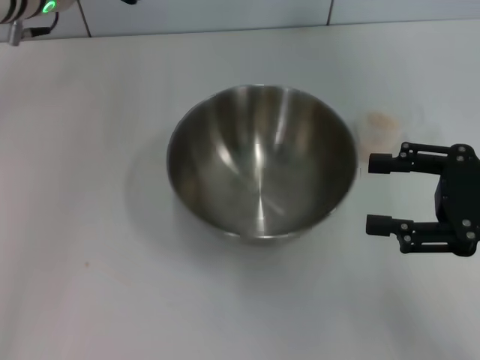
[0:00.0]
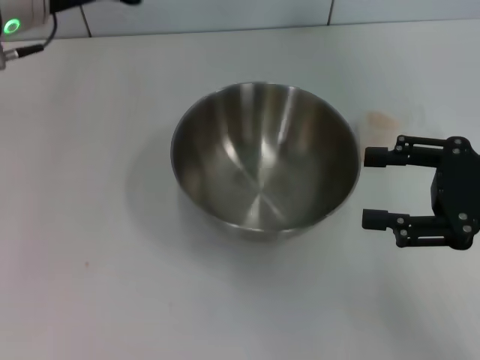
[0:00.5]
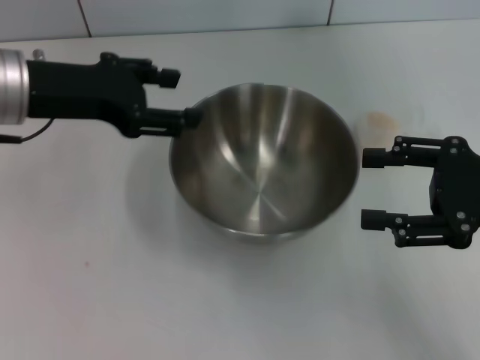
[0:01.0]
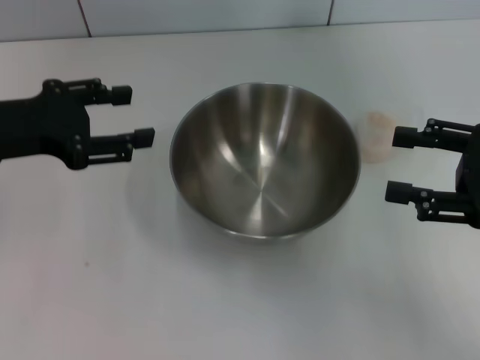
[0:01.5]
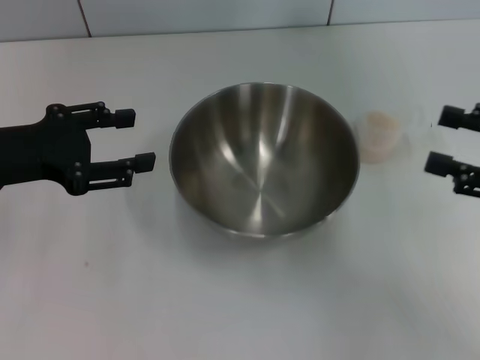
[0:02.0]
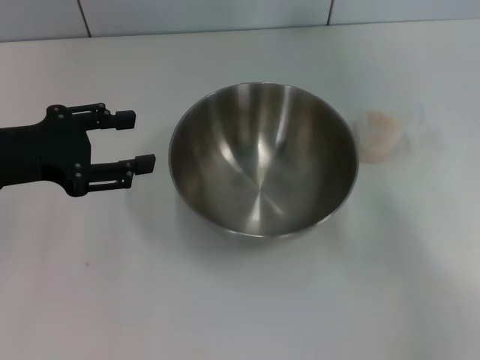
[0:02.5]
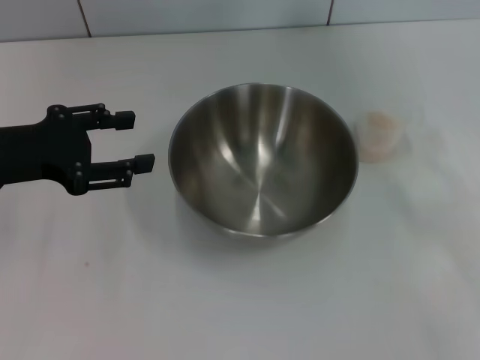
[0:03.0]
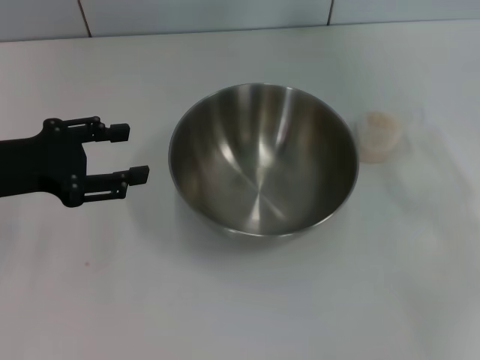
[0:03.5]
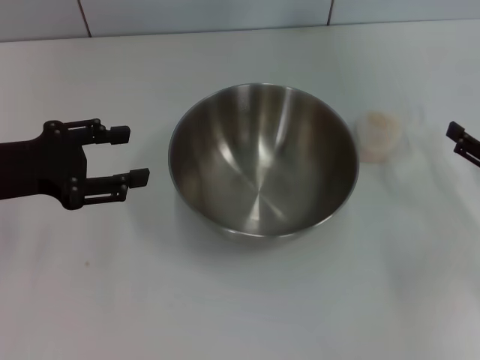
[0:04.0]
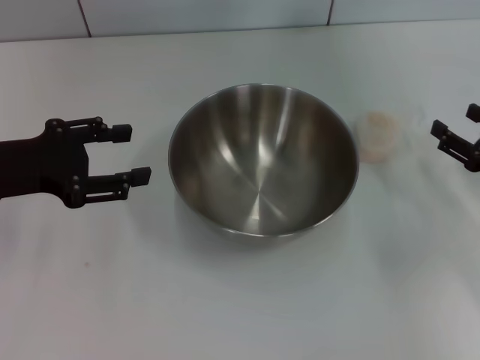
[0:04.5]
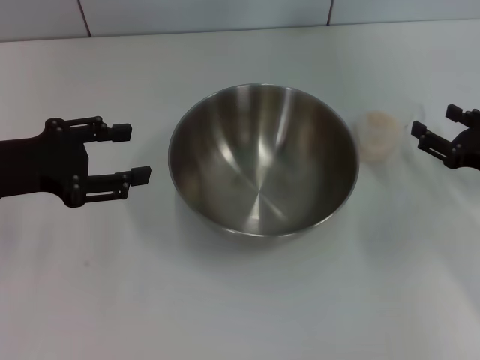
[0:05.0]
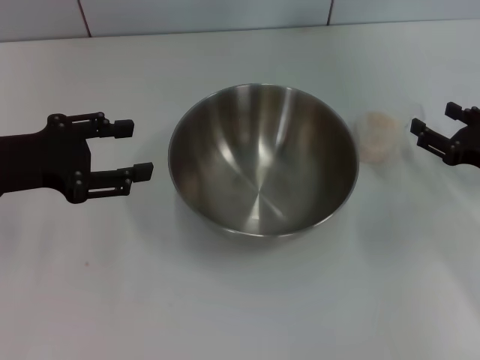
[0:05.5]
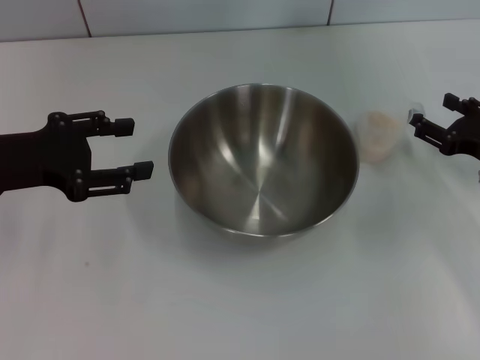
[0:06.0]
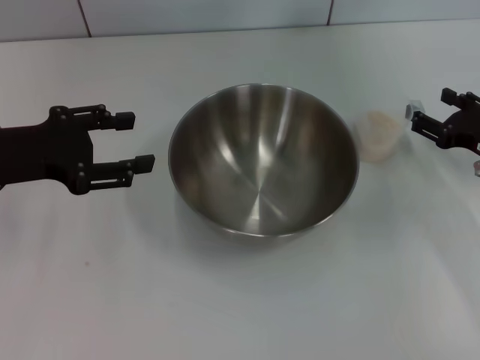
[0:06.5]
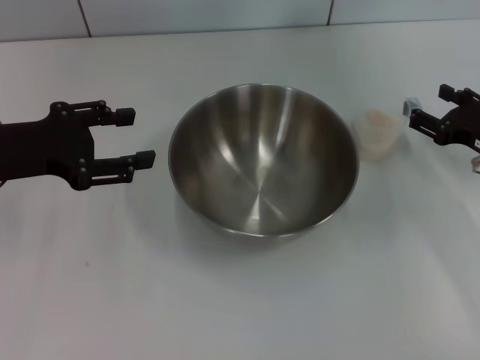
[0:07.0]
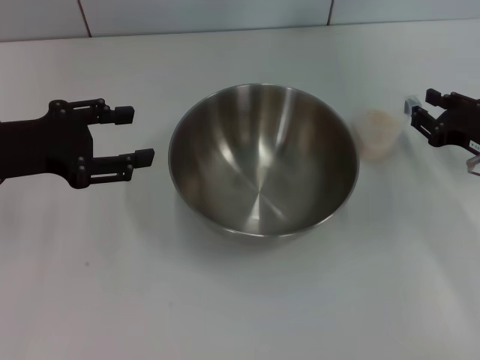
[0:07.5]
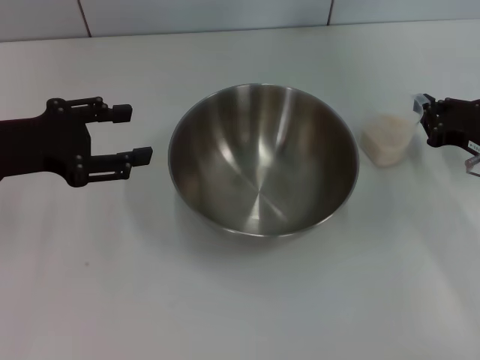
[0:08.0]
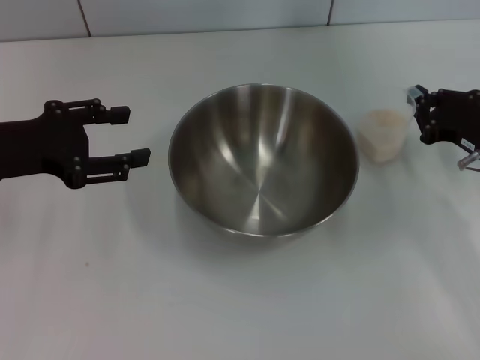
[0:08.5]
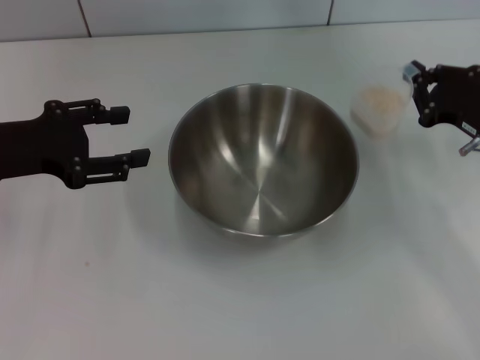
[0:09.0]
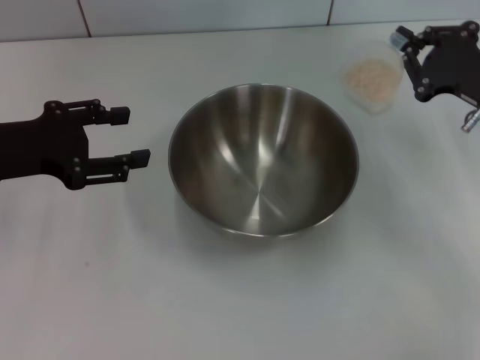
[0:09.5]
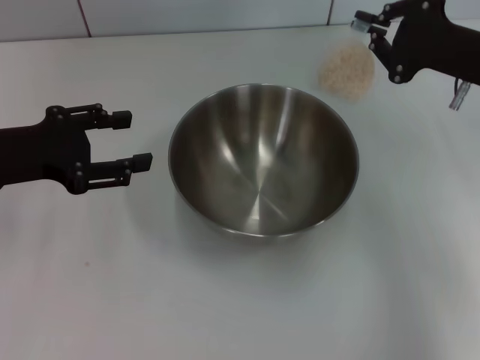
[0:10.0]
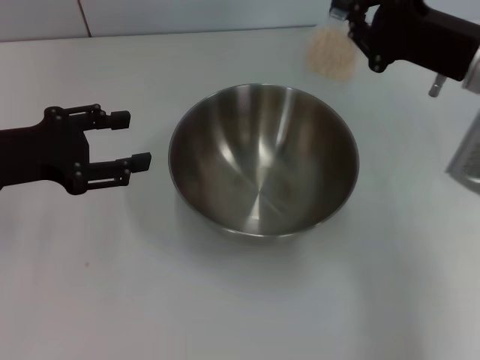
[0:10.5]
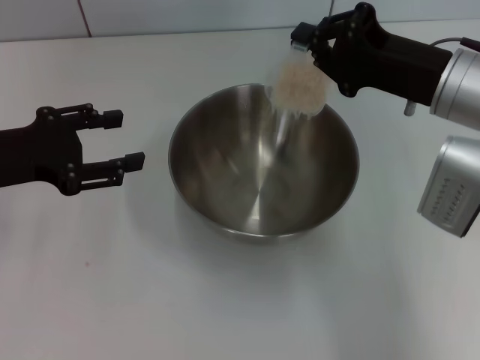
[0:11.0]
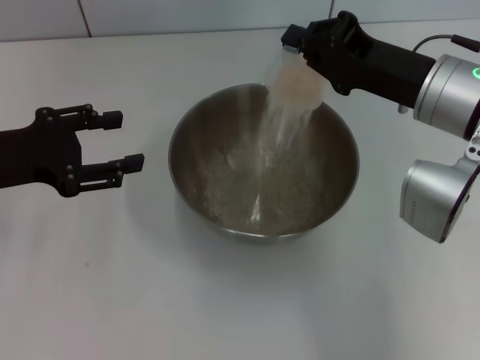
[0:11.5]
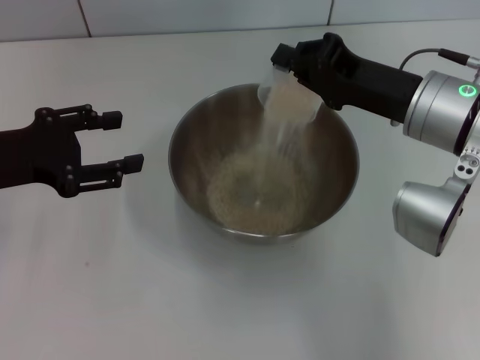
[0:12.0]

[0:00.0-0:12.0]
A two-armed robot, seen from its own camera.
Task of the whole recording: Place the bowl in the middle of the table with one hand and pour the rice from the grain cup into it with the other hand.
Step, 0:00.0 to 0:09.0: Pick up the cup with rice in it with the right gripper.
0:00.0 to 0:02.0: The left gripper is displaced backward, to the left and downward by roughly 15 cm. Meanwhile the right gripper heads to the right, covering approximately 5 cm.
0:02.0 to 0:04.0: The right gripper heads downward, covering roughly 10 cm.
0:04.0 to 0:06.0: The right gripper changes place by about 5 cm.
0:06.0 to 0:08.0: The right gripper closes up.
0:08.0 to 0:10.0: The right gripper is displaced upward by about 10 cm.
0:10.0 to 0:12.0: The right gripper heads to the left, covering some 10 cm.

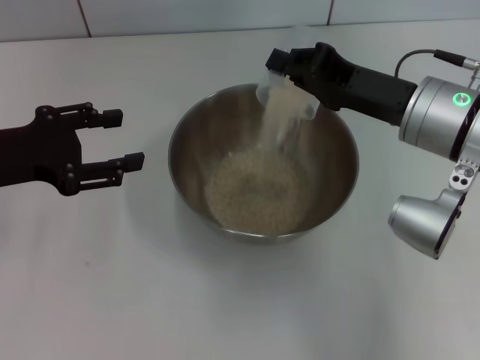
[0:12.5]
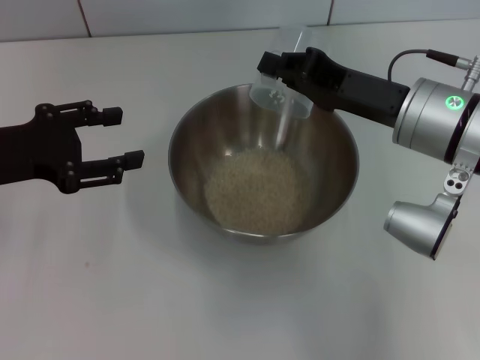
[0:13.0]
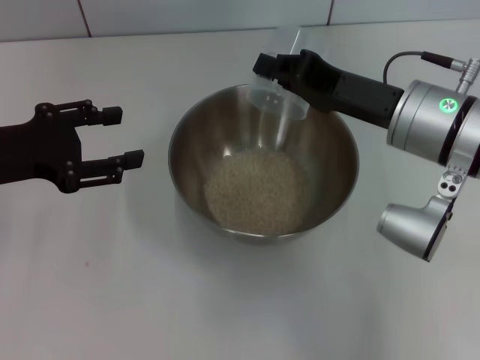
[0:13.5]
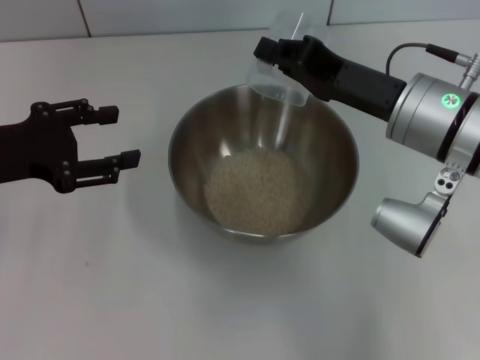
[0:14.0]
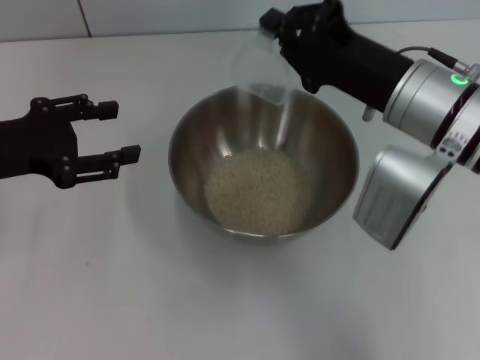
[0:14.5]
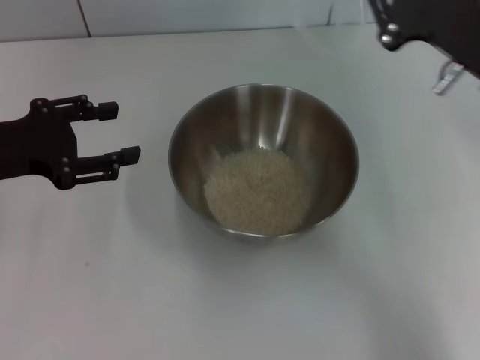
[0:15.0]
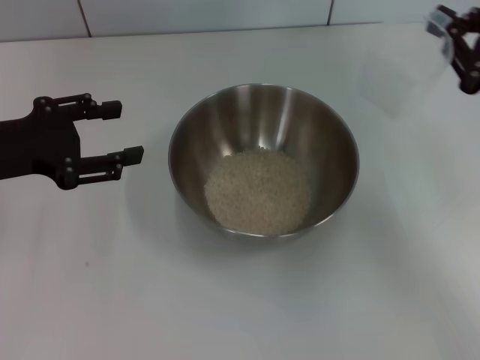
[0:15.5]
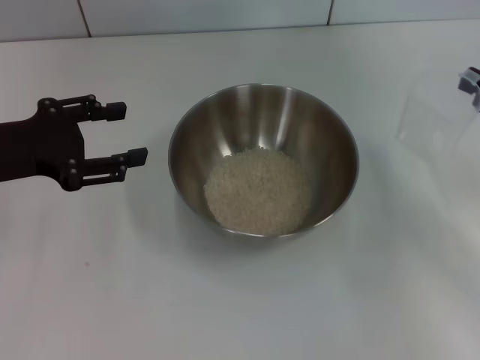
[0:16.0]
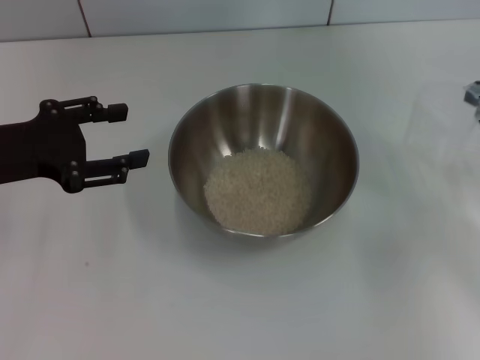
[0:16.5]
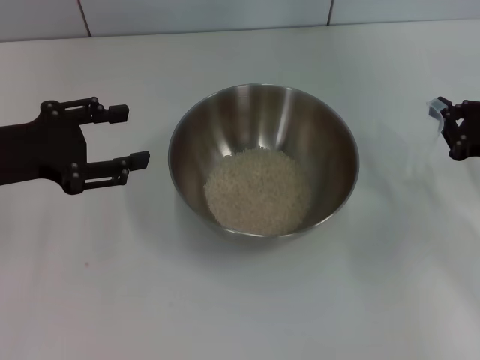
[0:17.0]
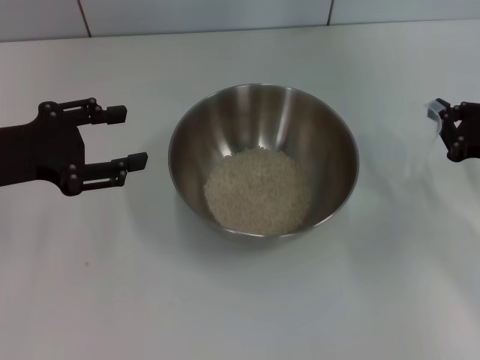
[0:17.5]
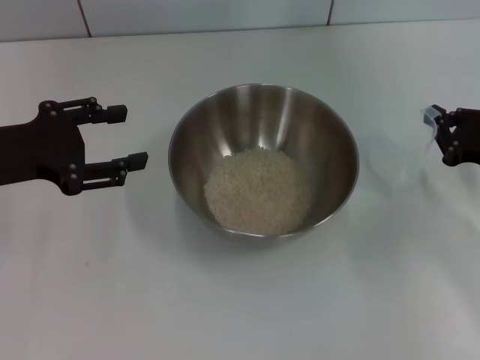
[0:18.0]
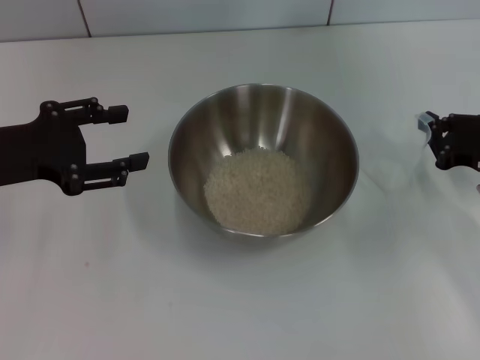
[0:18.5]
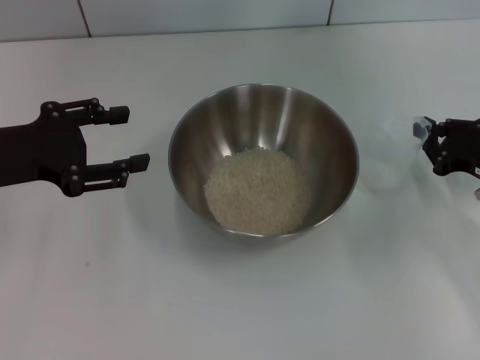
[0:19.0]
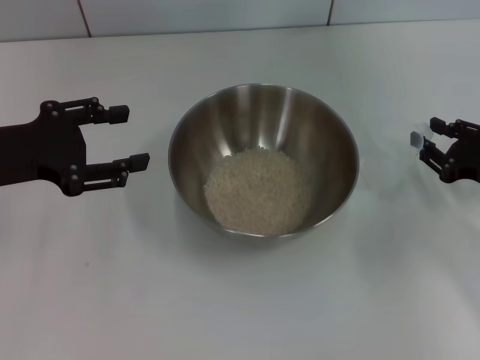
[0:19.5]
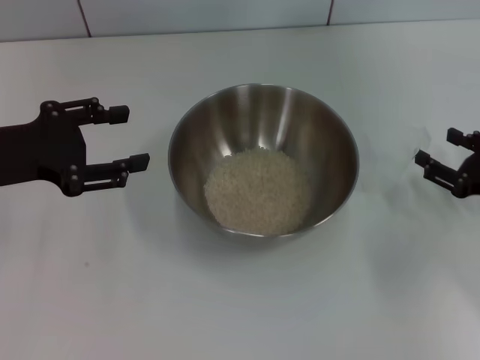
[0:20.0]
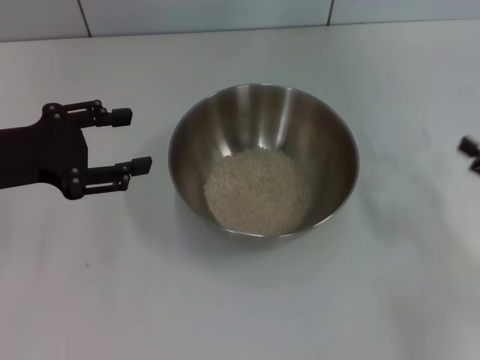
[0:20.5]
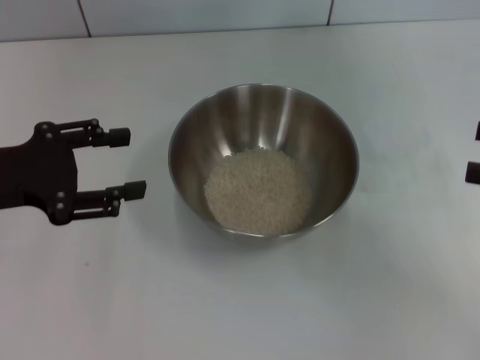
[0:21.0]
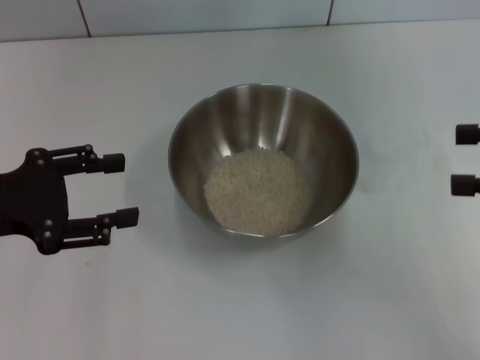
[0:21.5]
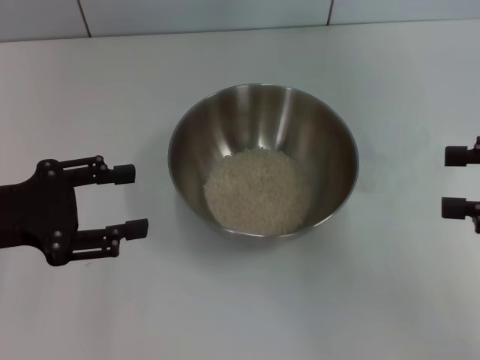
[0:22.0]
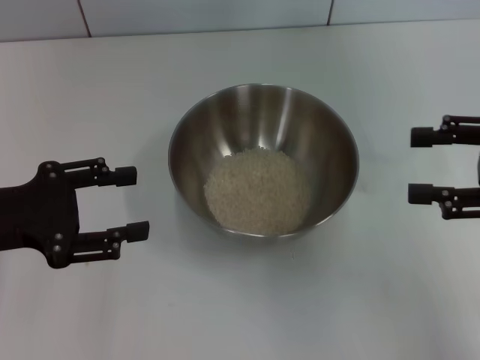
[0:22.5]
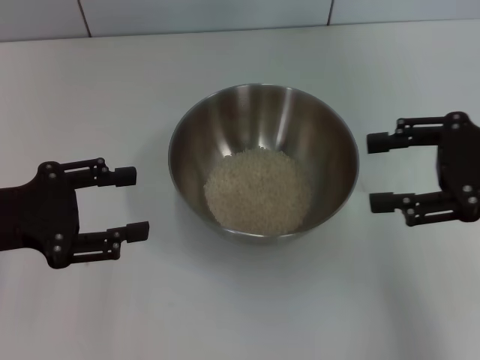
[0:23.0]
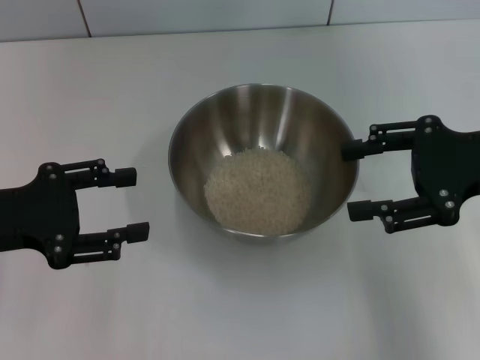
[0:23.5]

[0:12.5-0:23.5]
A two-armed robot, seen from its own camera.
Task of the whole recording: Place the bowl in the middle of the table with one hand and pour the rice from the grain cup into it with the other hand.
Step, 0:12.5 to 0:14.5: Pour the rice from the cup into the bowl with the right gripper.
Step, 0:15.0 to 0:20.0: Place the cup on the table with the right gripper.
0:14.5 to 0:16.0: The right gripper is displaced to the right by roughly 20 cm.
0:16.0 to 0:18.0: The right gripper goes roughly 5 cm downward.
0:18.0 to 0:20.0: The right gripper opens its fingers.
0:20.0 to 0:21.5: The right gripper is displaced upward by about 15 cm.
0:21.5 to 0:23.5: The right gripper shifts roughly 10 cm to the left.
